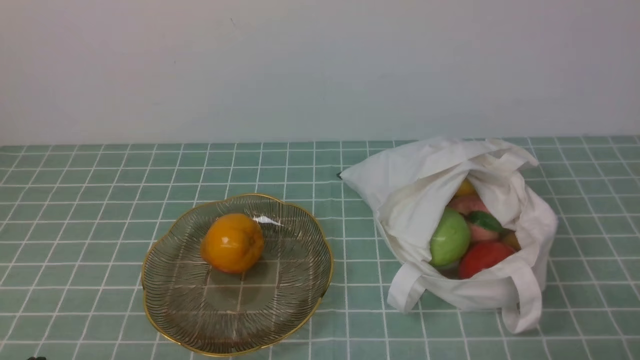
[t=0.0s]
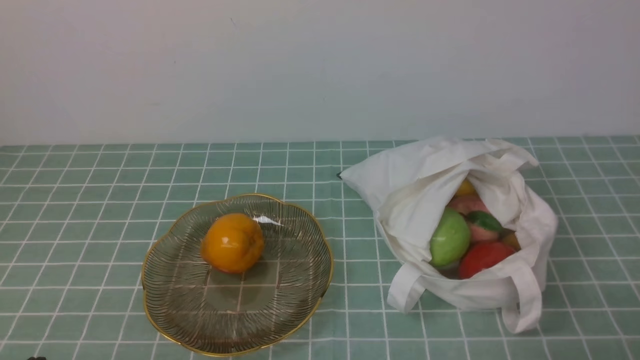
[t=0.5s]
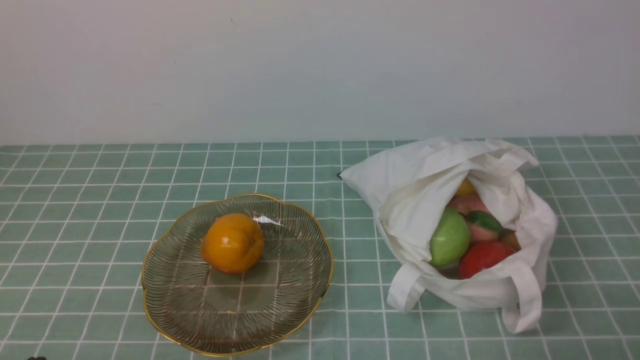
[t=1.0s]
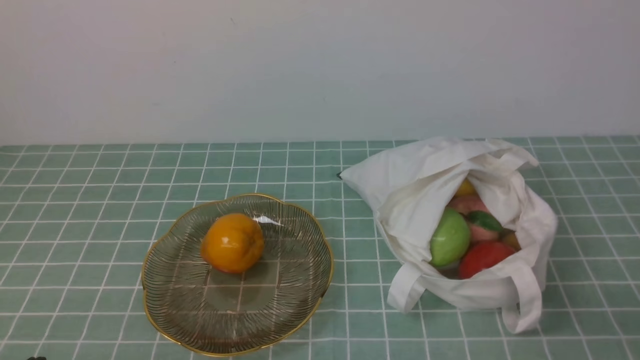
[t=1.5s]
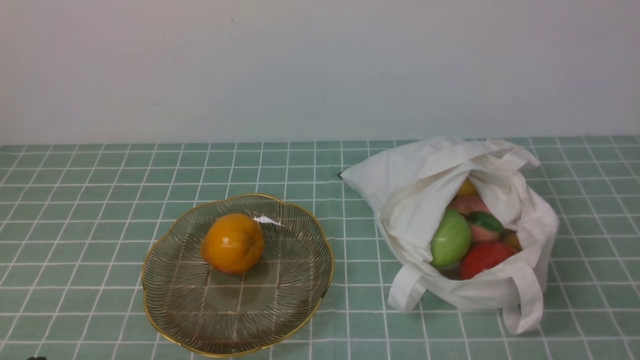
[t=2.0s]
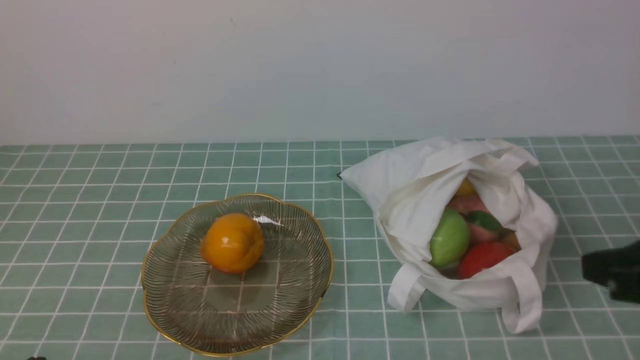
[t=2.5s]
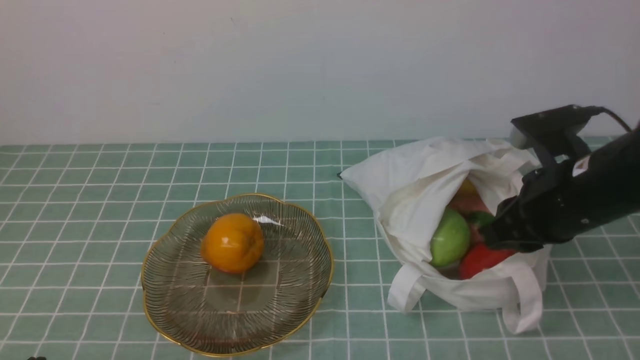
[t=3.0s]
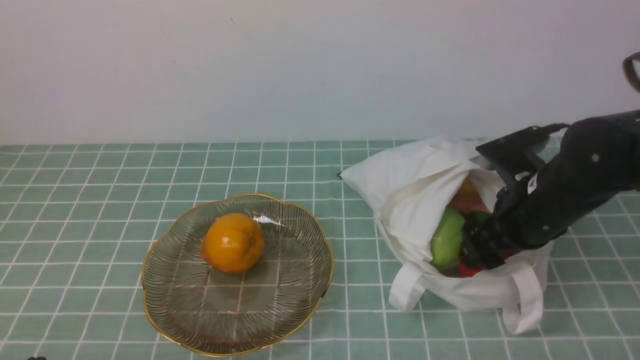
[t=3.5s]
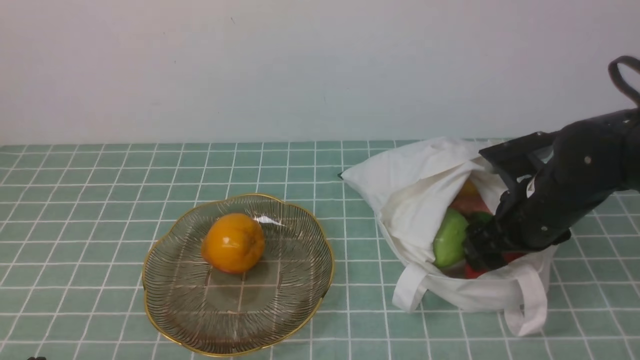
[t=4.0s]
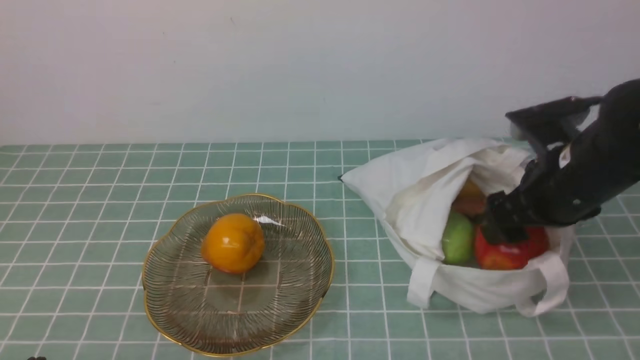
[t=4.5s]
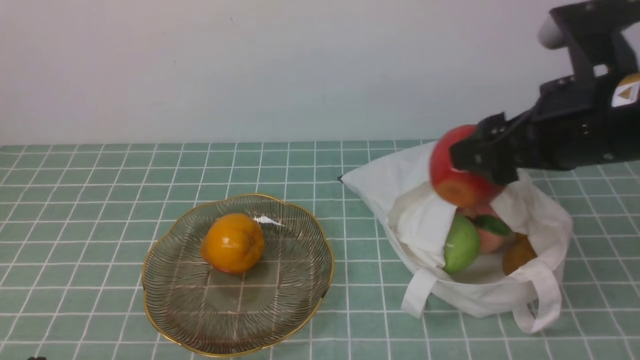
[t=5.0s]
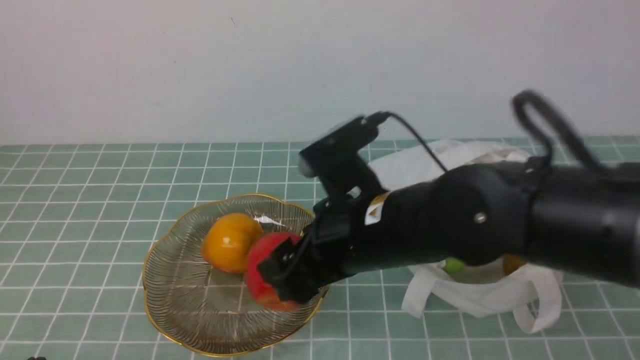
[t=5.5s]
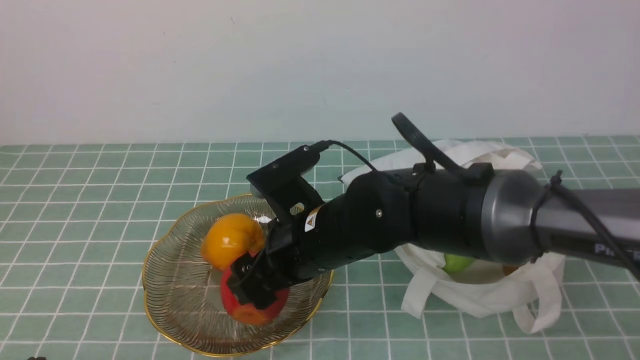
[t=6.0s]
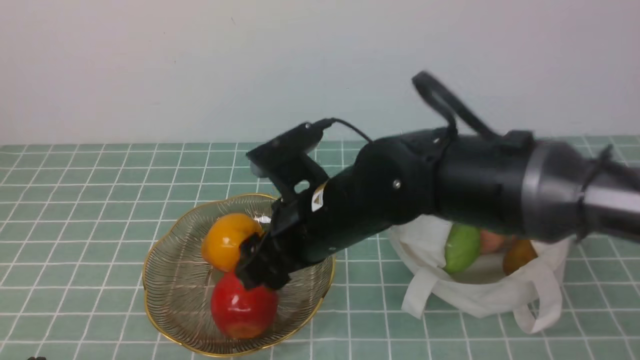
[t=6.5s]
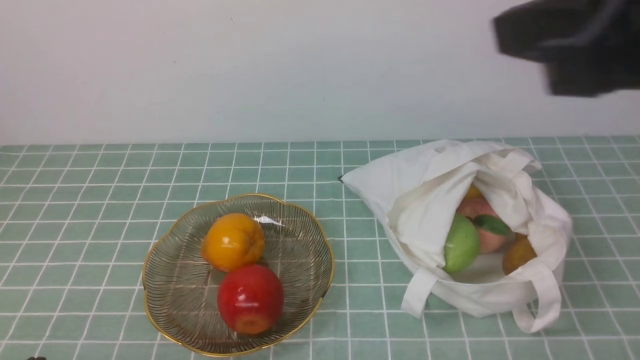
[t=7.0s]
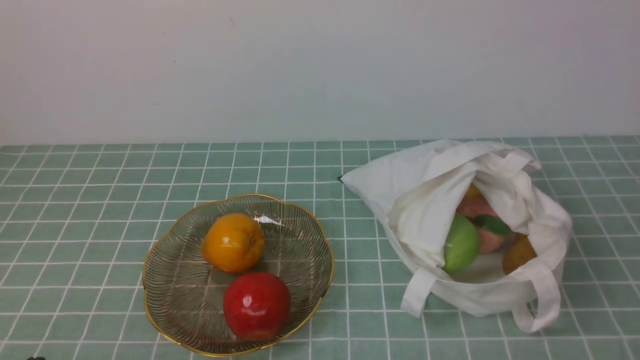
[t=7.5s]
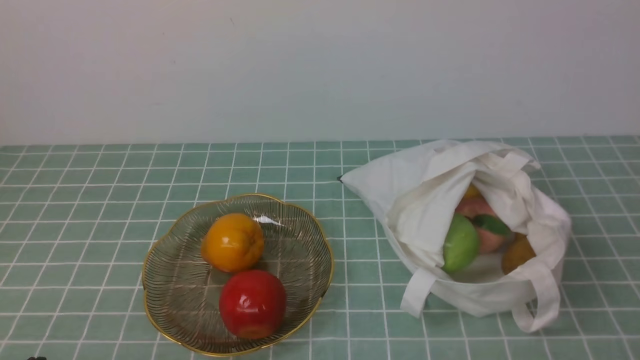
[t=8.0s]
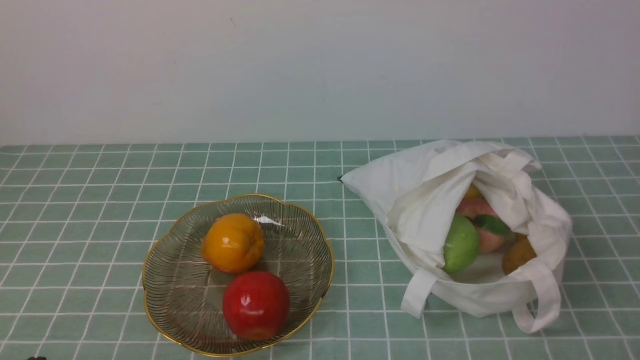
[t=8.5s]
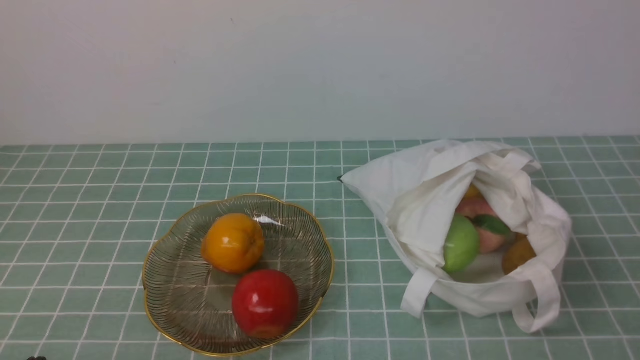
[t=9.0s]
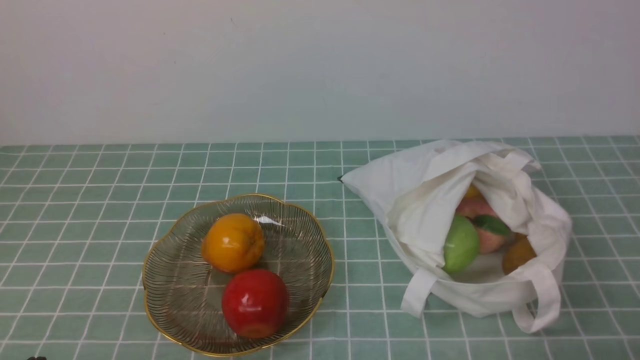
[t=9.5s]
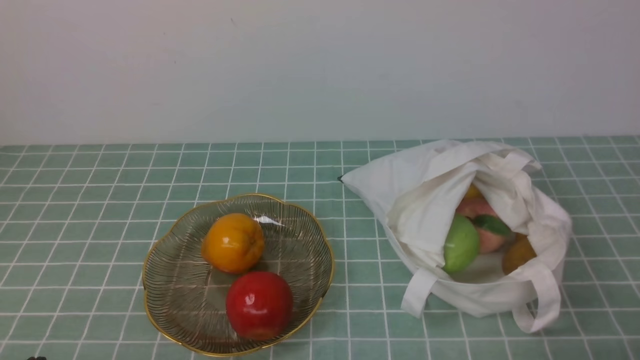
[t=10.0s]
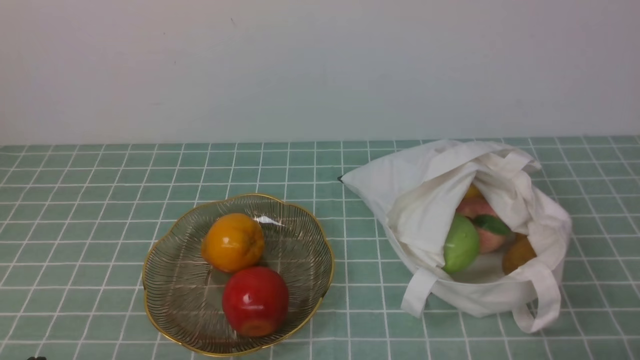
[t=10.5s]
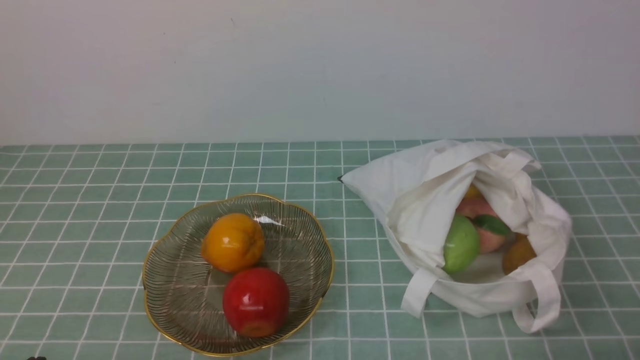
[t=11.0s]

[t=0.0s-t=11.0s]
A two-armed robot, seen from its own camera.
Step, t=0.0s to t=4.0s: use the right arm to grab an apple from the bag.
Step, t=5.0s to t=6.0s: use the right arm to put the apple into the empty plate on the left.
t=2.0s to t=3.5s: The right gripper goes some 25 cm forward, and opens its fingers.
t=3.5s to t=5.5s: The right gripper travels to the left, upward and backward by about 20 cm.
t=5.5s to t=7.5s: The right gripper travels to the right, backward and upward by approximately 35 cm, and closes its fingers.
